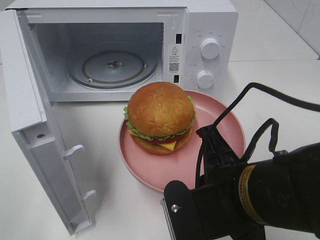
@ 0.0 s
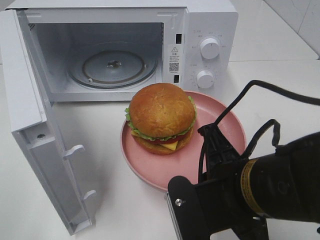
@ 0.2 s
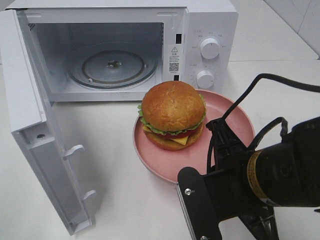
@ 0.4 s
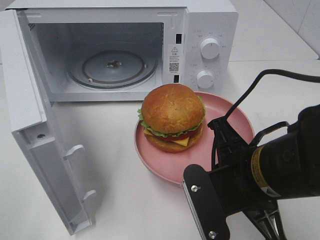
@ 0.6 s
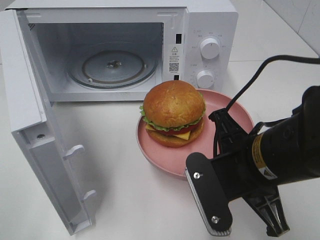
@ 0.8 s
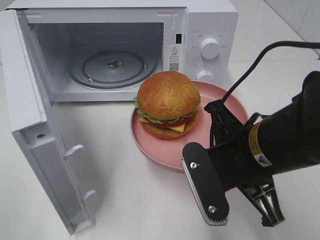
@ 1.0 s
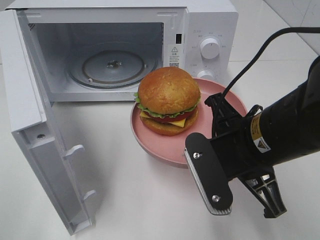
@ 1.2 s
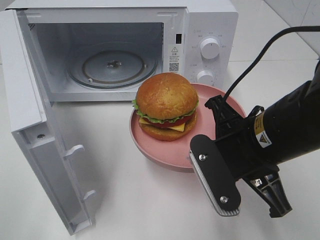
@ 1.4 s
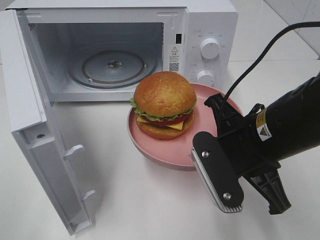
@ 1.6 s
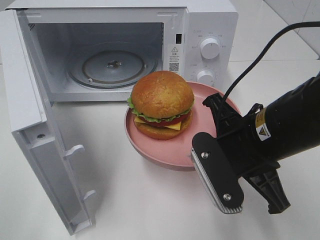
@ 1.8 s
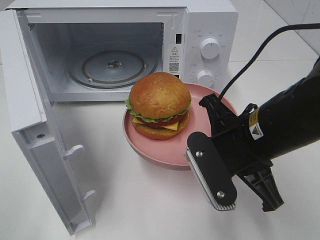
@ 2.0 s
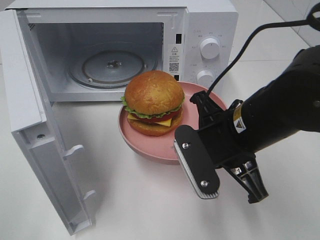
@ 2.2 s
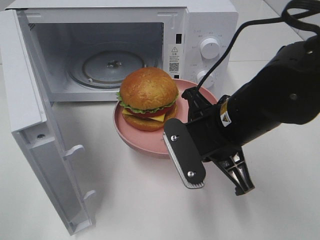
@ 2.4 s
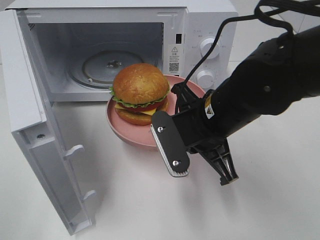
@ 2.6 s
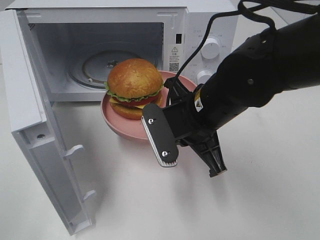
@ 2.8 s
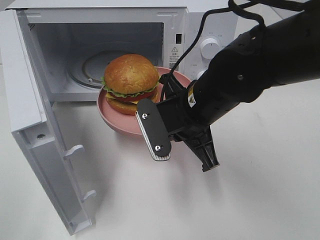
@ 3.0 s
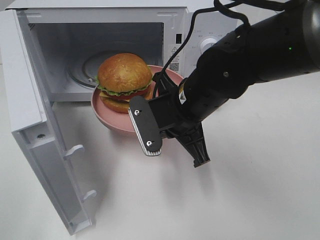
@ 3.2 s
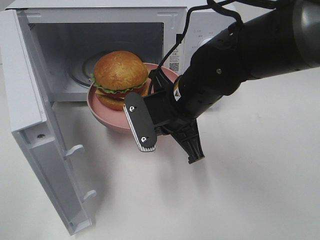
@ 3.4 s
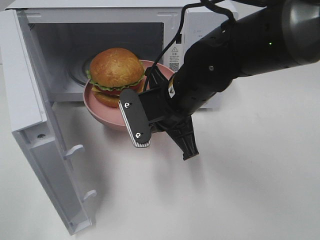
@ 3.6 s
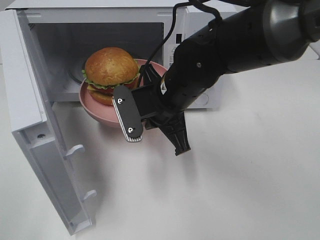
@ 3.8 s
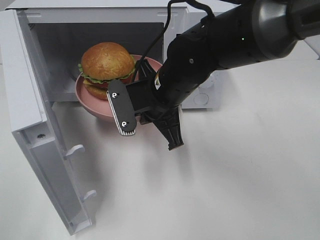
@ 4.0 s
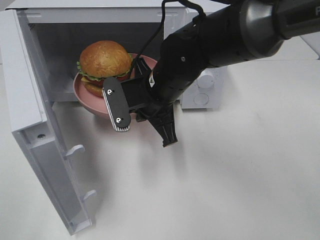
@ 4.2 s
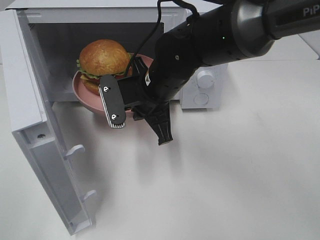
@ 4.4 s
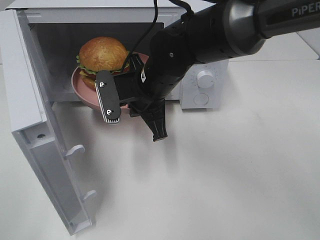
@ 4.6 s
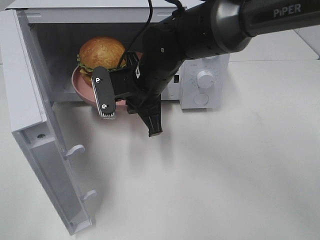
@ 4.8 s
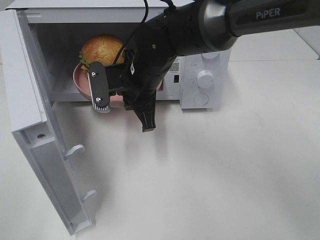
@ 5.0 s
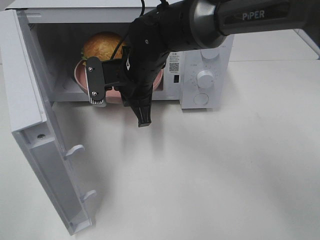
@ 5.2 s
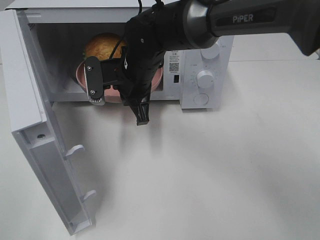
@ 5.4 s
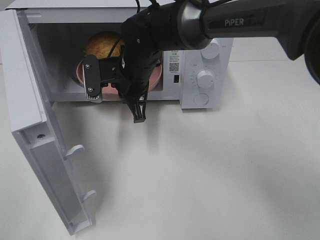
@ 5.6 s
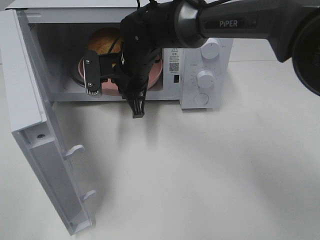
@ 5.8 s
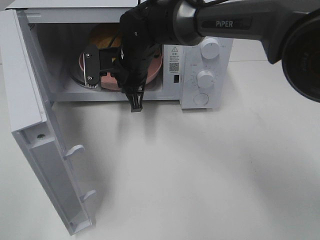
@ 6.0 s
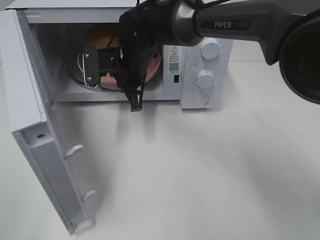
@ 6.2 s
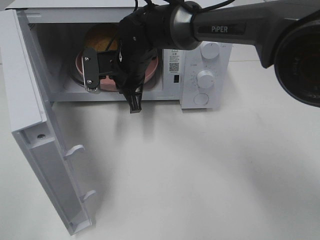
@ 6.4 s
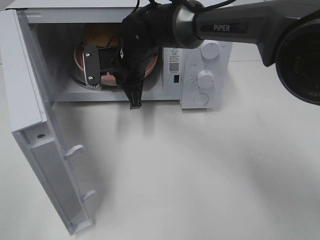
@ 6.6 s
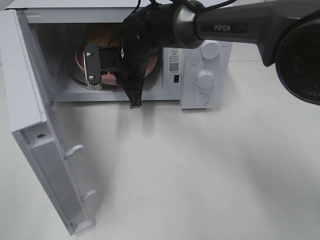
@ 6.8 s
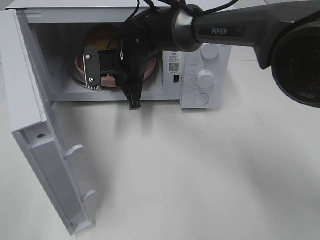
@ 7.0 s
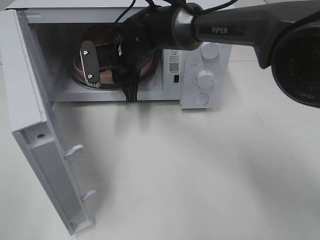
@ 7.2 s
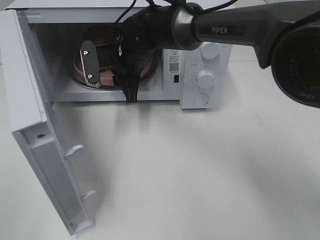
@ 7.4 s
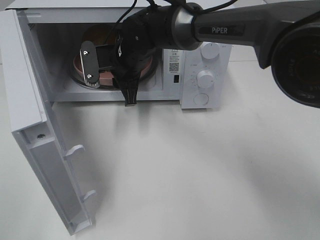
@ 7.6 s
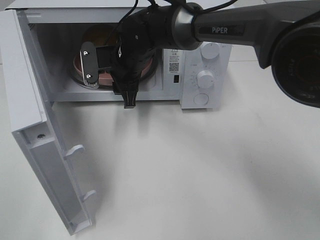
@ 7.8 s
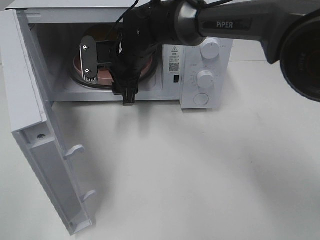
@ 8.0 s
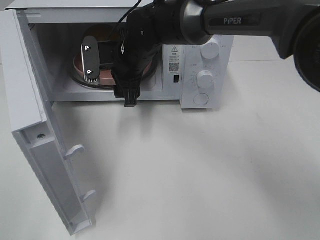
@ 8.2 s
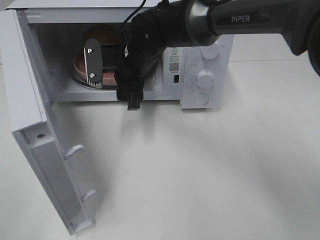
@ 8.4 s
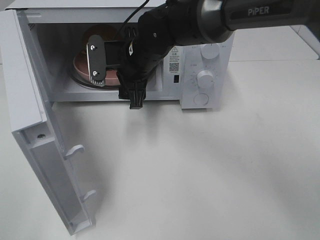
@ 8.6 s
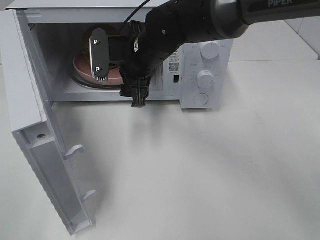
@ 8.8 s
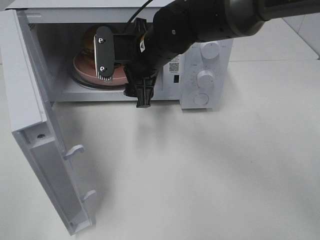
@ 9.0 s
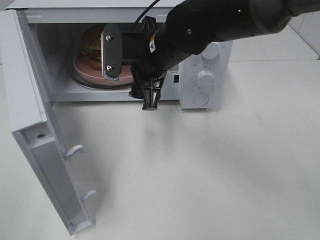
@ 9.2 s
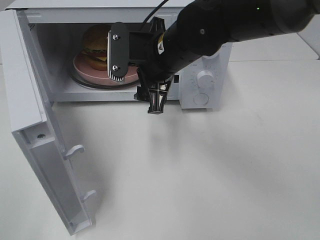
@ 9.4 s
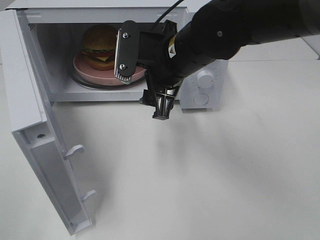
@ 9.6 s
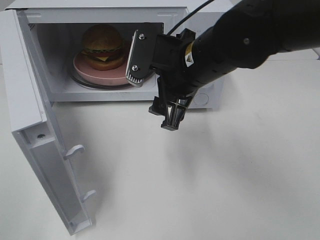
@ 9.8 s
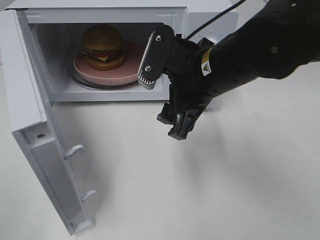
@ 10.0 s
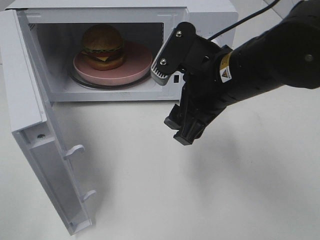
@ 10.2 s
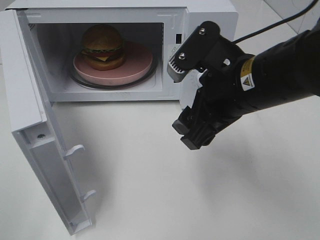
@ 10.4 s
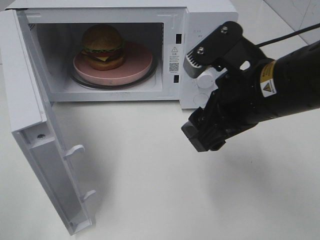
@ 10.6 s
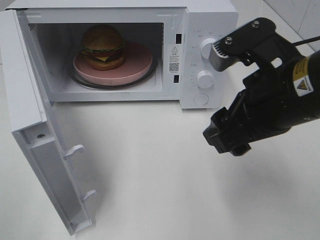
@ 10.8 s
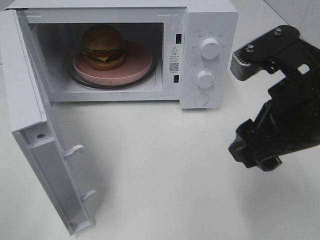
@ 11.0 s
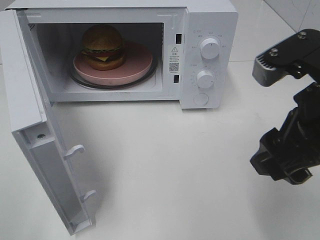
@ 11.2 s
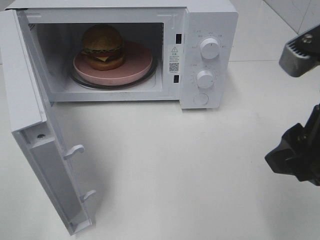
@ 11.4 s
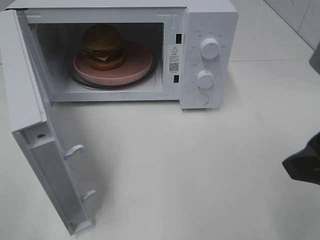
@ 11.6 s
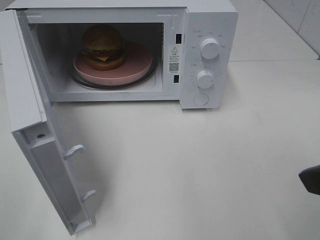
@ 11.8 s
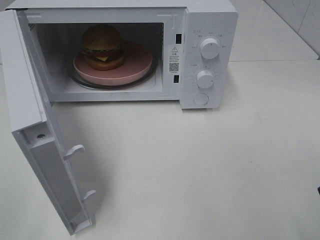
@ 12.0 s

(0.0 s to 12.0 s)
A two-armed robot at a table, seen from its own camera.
Task of the whole recording: Heat the burger.
Step, 0.0 s - 7.4 s: Right hand: place the plate in the microwave.
0.0 s - 1.6 s: The right gripper moves forward, some 5 cm.
1.6 s - 3.0 s: The right gripper goes roughly 10 cm forward and to the left.
3.0 s - 4.4 s: The right gripper moves forward and to the left, some 10 cm.
4.4 s - 6.0 s: The right gripper heads forward, covering roughly 10 cm.
6.0 s - 7.6 s: The right gripper opens.
7.6 s - 9.0 s: The right gripper shifts about 5 cm backward, and opens up.
9.0 s - 10.4 s: The right gripper travels backward and to the right by approximately 20 cm.
10.4 s - 12.0 s: The right gripper shifts approximately 20 cm to the right and backward.

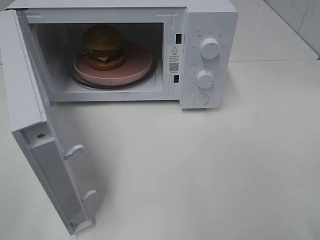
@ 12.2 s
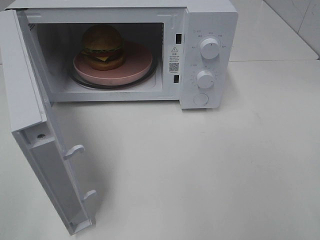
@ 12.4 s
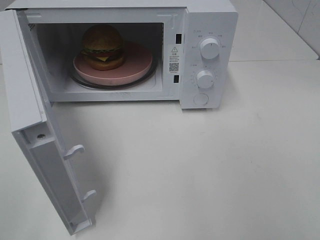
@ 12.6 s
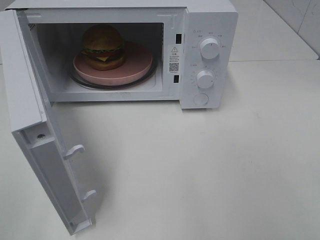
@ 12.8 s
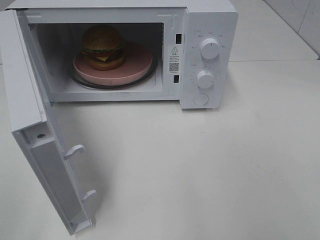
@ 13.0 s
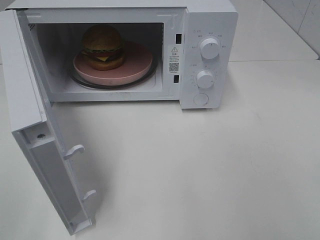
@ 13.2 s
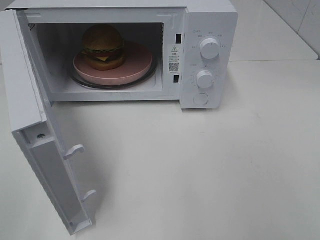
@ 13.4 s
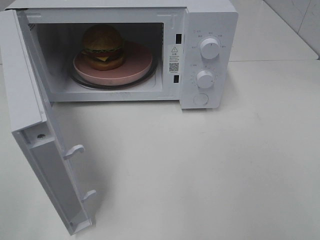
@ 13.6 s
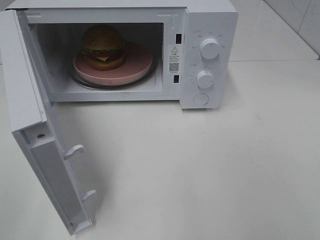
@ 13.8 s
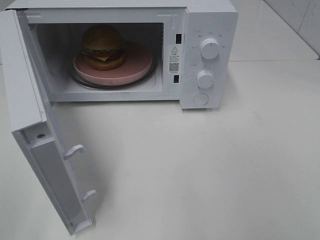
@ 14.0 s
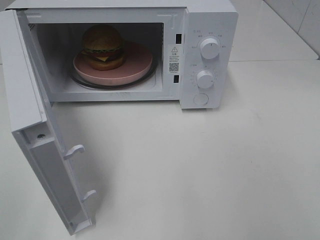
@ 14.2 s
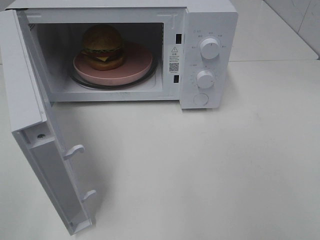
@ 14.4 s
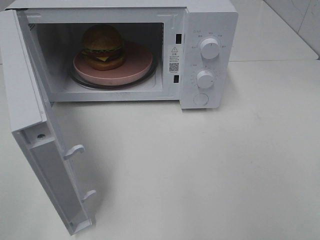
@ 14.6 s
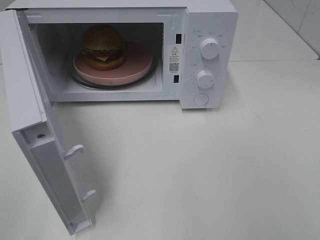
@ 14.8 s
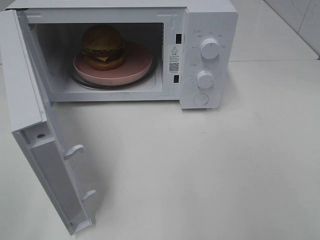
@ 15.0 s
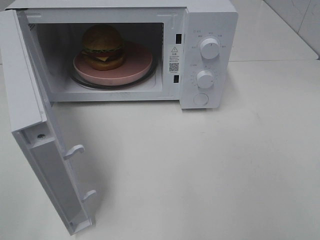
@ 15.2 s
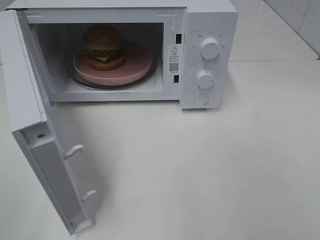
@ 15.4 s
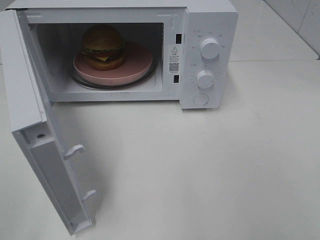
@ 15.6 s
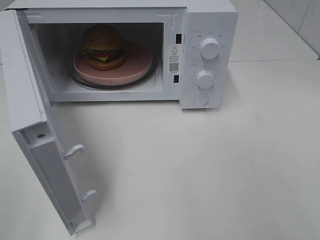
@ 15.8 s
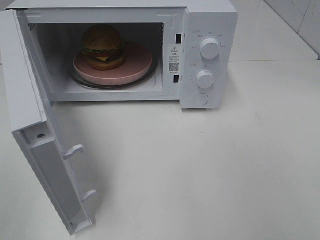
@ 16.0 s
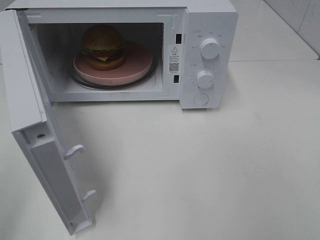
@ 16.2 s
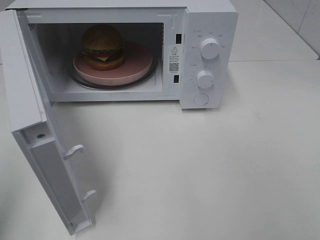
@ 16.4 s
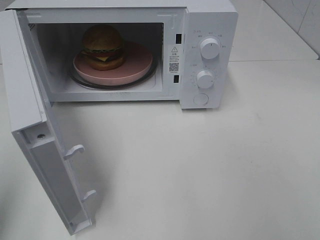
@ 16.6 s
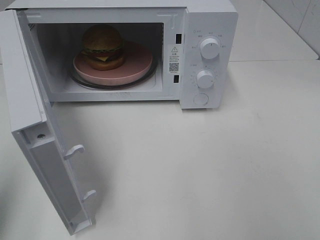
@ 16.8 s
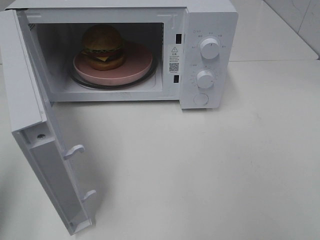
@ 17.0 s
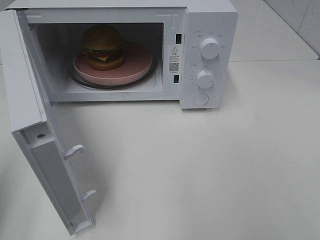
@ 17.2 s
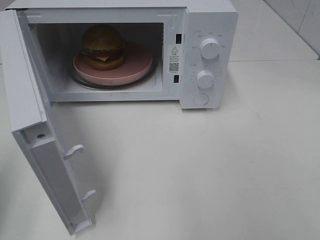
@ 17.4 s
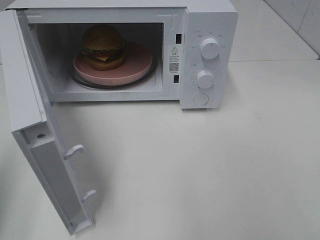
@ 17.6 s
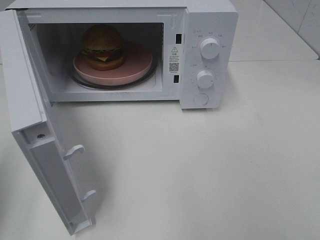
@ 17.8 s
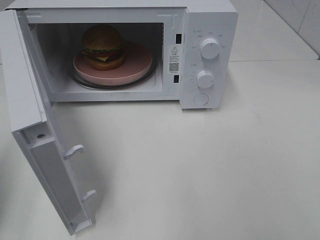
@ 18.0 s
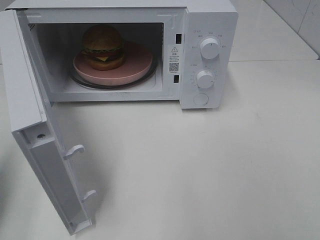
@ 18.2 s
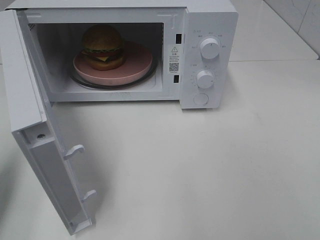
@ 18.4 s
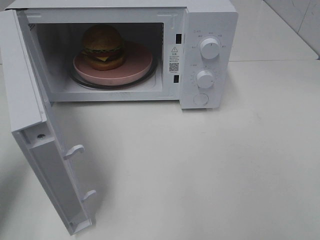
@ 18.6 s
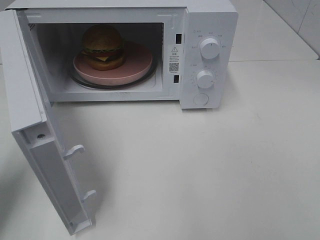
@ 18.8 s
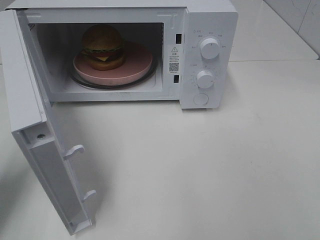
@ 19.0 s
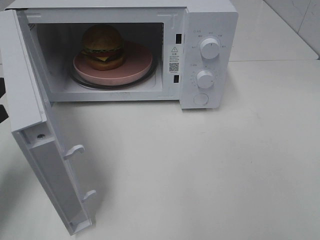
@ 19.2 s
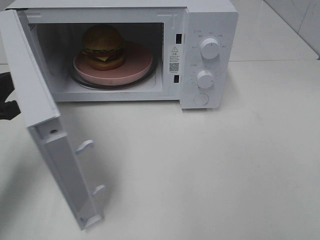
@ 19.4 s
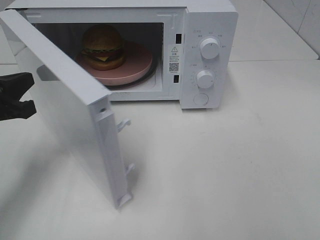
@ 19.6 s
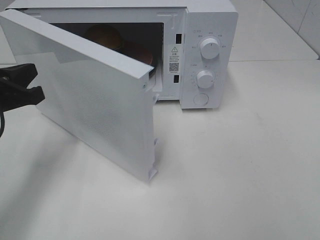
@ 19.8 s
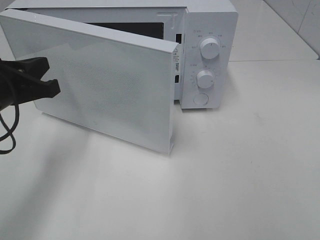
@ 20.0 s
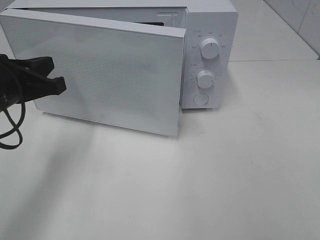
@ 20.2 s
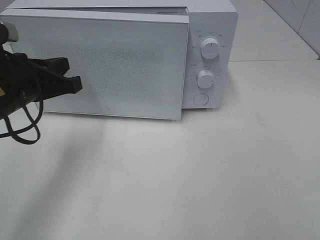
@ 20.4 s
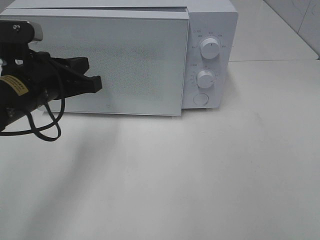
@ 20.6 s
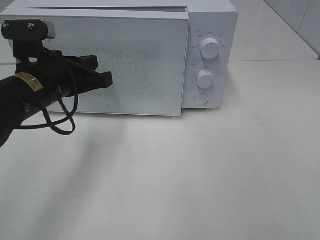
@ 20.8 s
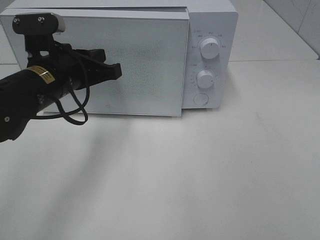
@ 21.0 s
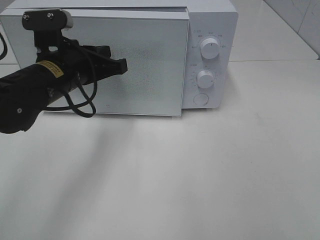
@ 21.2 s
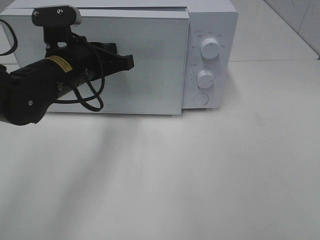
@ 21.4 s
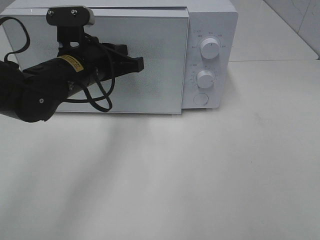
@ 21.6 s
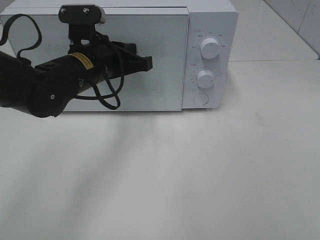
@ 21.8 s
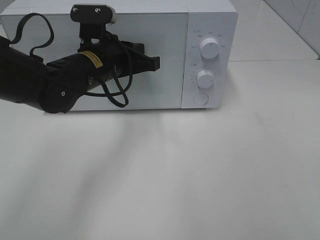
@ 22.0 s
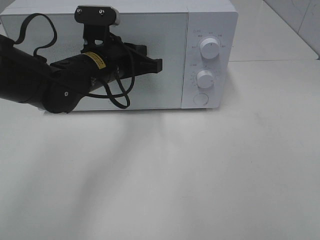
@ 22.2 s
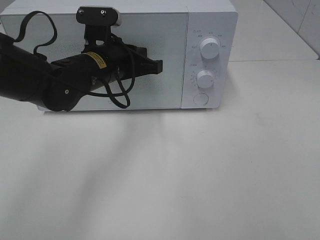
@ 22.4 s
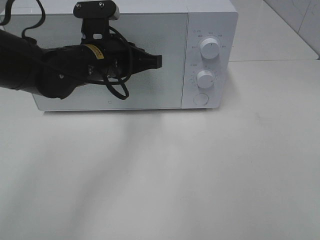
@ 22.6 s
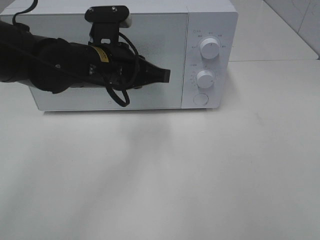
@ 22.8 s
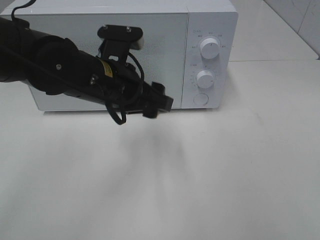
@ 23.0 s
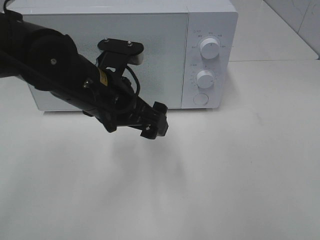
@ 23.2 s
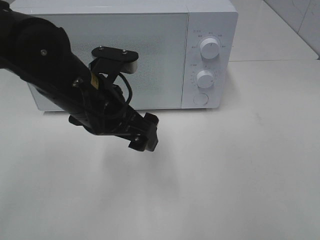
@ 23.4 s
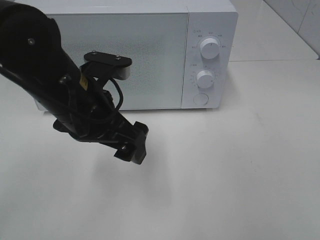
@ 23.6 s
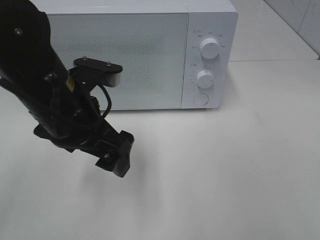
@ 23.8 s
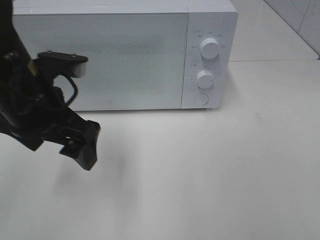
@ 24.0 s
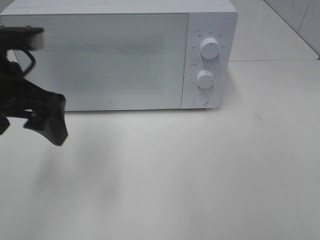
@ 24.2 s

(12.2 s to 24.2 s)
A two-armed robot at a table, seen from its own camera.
Task of the whole recording: Heat the burger.
Step, 12.2 s - 22.8 s: Left hand: close the microwave door.
13.8 s - 15.2 s: The two grippers keep their place.
18.2 s - 19.8 s: The left gripper goes roughly 10 cm forward and to the right.
19.8 s - 21.2 s: The left gripper travels to the right and forward by about 15 cm.
21.2 s - 22.6 s: The left gripper moves to the right, approximately 5 cm.
22.6 s - 24.2 s: The left gripper shifts roughly 15 cm to the left, backward and upward, and opens.
